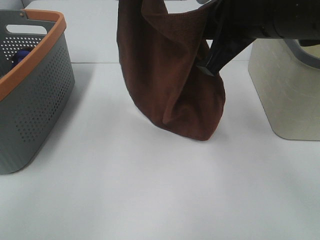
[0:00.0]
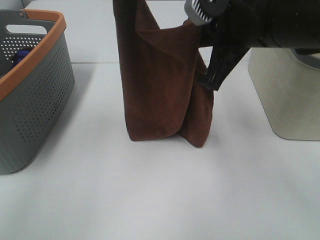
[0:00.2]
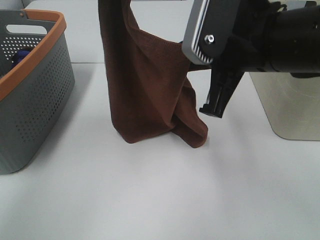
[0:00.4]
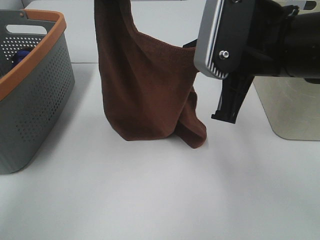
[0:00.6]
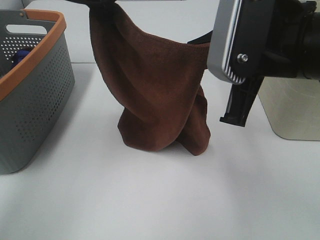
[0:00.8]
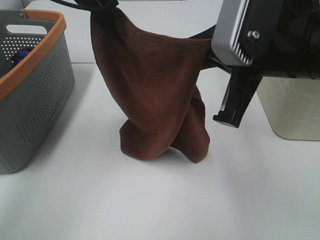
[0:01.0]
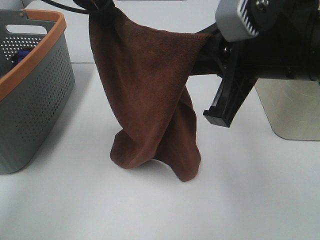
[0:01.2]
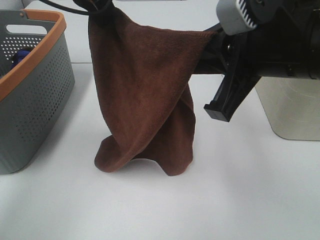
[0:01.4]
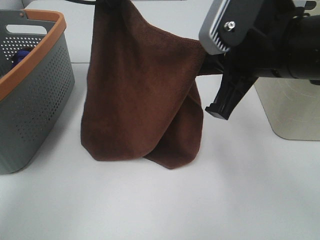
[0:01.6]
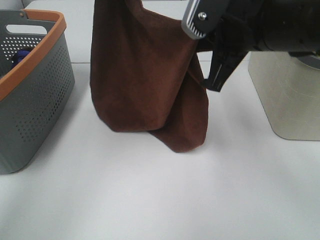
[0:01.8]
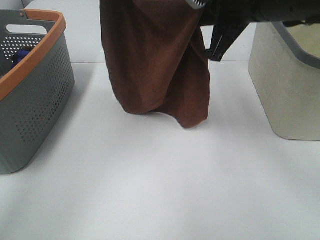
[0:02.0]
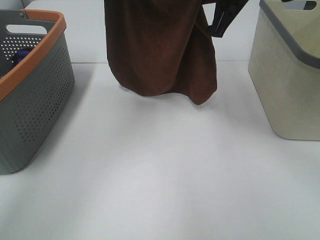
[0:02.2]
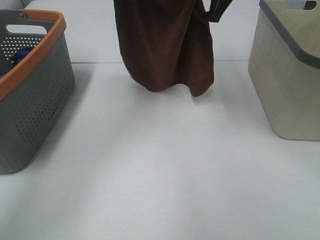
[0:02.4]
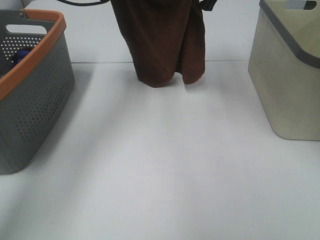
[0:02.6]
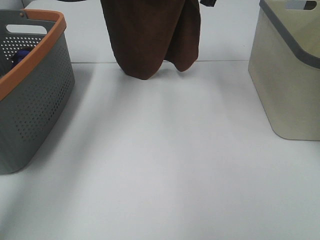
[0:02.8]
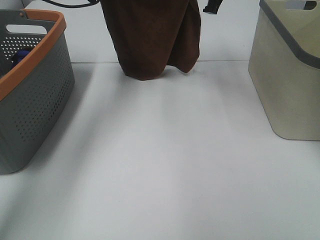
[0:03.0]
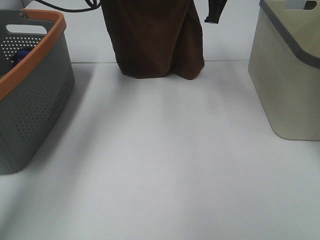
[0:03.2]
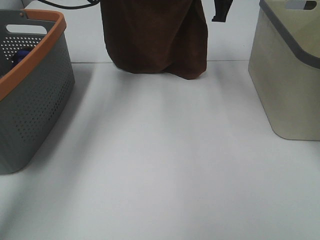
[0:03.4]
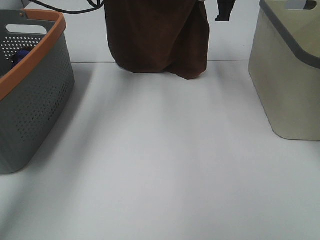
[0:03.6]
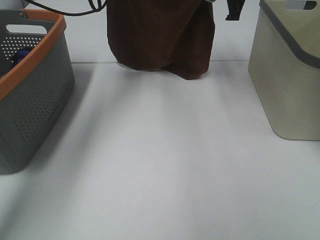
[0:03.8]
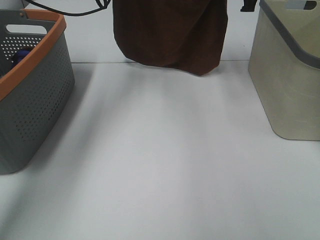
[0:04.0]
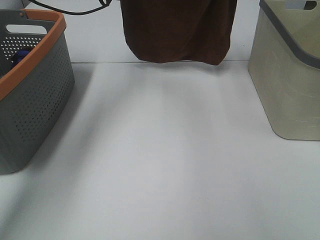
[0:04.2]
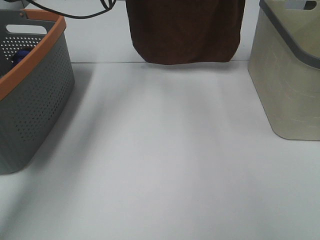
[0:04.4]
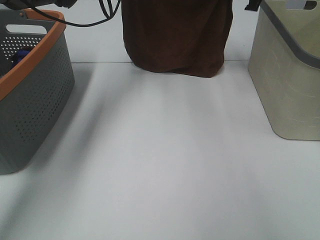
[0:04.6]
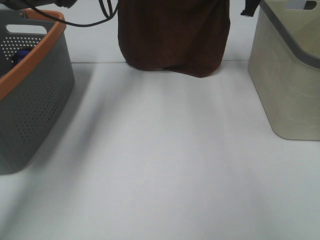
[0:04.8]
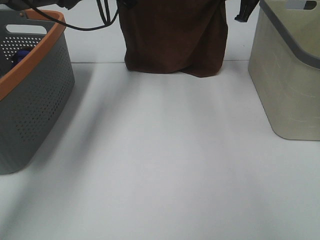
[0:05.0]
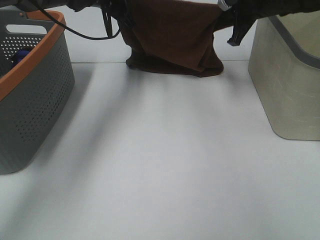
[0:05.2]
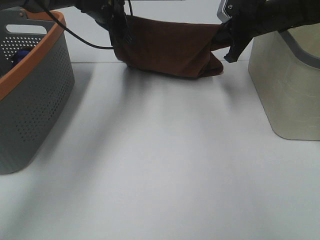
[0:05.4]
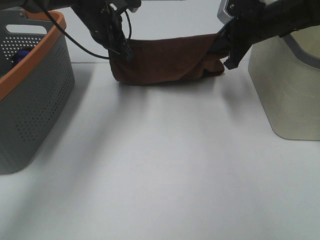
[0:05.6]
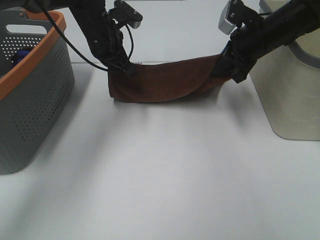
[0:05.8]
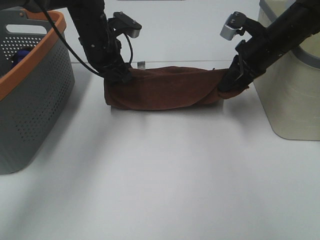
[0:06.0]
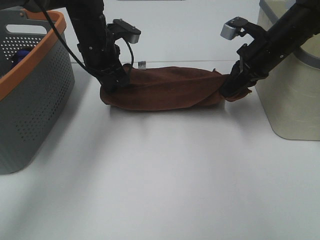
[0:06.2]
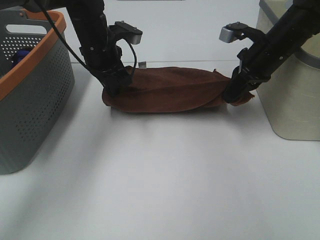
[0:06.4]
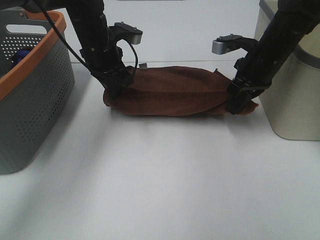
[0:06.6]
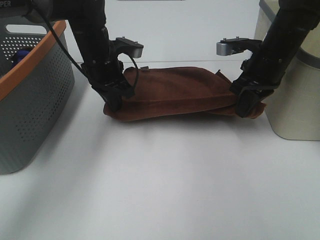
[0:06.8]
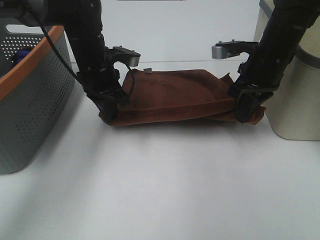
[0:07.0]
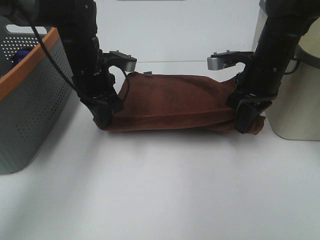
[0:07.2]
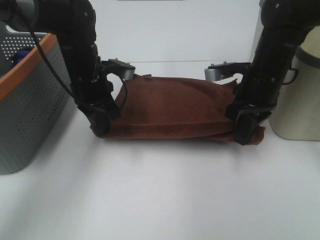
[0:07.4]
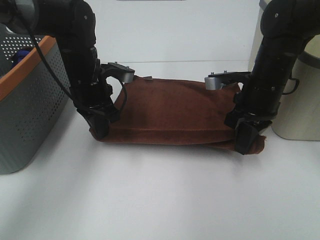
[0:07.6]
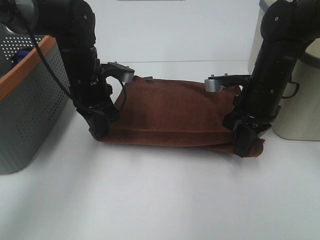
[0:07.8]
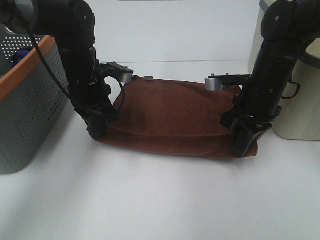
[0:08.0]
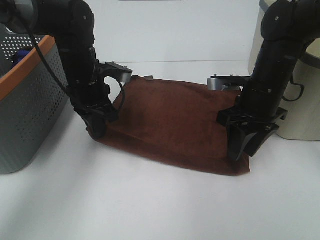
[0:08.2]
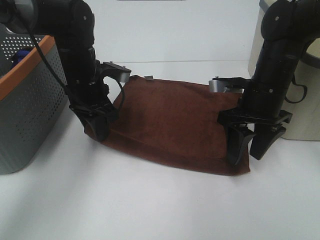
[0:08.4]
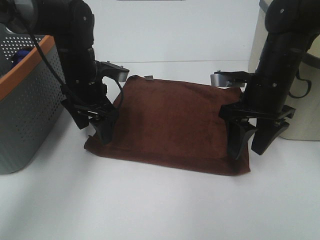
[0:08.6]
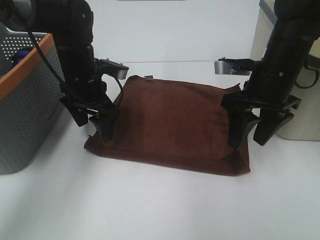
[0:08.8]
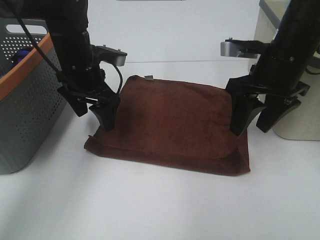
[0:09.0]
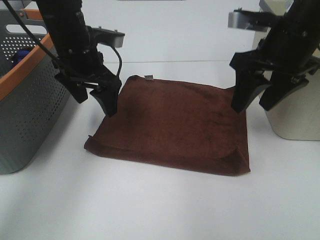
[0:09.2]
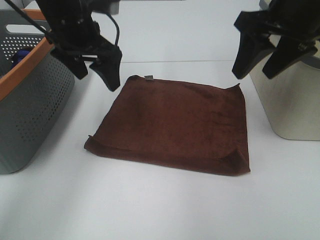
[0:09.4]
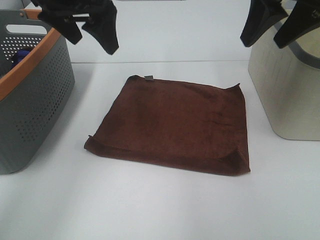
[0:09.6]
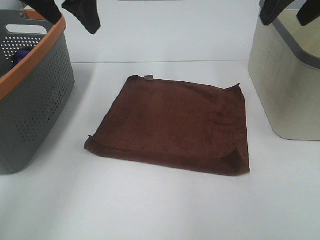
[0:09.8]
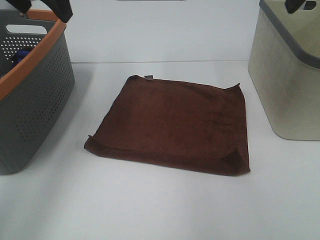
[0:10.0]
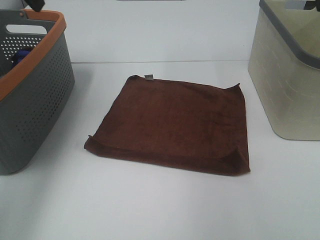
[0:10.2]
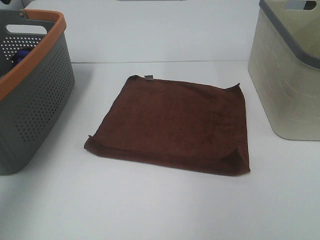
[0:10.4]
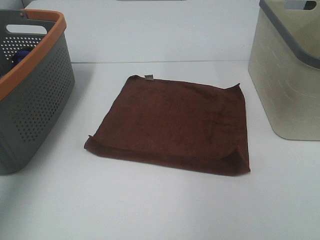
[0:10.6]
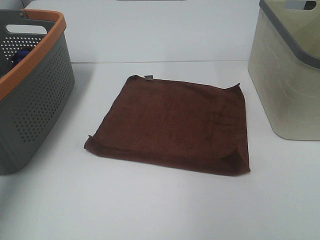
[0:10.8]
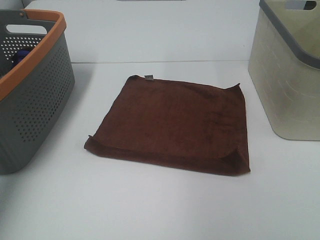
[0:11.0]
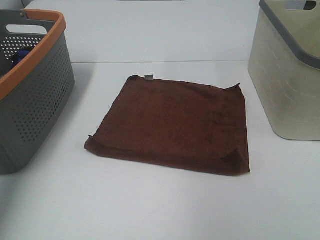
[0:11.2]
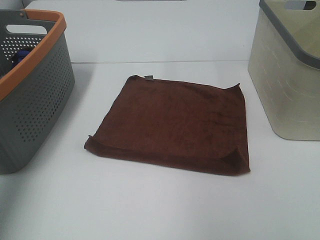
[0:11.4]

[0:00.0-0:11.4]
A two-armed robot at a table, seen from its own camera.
Task of the whole recording: Remove the towel and place it.
Step, 0:00.0 to 0:02.6: Right hand: spread the brown towel flat on the table.
Step, 0:00.0 to 0:02.8: Left hand: spread the brown towel flat on the table.
0:00.0 to 0:01.4: The left gripper is displaced to the left by some 5 cm.
0:01.4 to 0:02.8: The left gripper is displaced forward by approximately 15 cm; the right gripper travels forward by about 25 cm.
0:02.8 to 0:04.2: The right gripper shifts approximately 10 cm to the right.
0:04.2 to 0:05.6: Both grippers move downward, roughly 10 cm.
0:05.6 to 0:07.2: The two grippers go some 10 cm backward.
0:07.2 to 0:08.6: The right gripper opens, while the left gripper opens its fingers.
0:08.6 to 0:10.0: Both grippers move upward, roughly 20 cm.
0:10.0 to 0:11.4: The right gripper goes some 15 cm backward; the left gripper moves backward and to the left, roughly 20 cm.

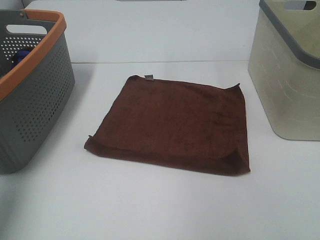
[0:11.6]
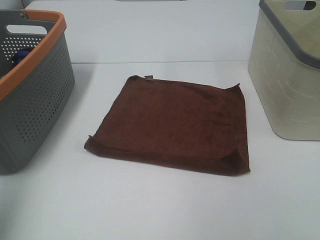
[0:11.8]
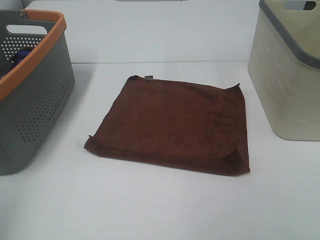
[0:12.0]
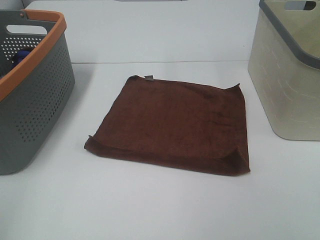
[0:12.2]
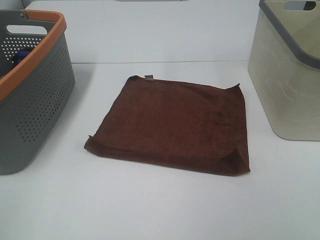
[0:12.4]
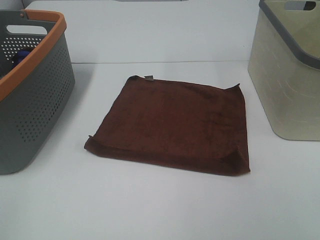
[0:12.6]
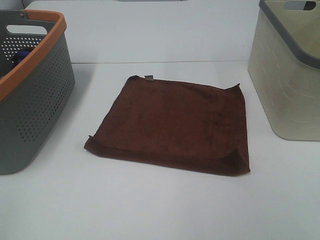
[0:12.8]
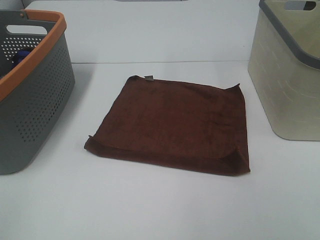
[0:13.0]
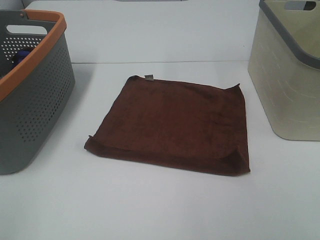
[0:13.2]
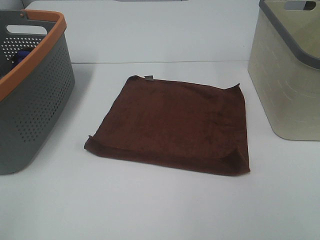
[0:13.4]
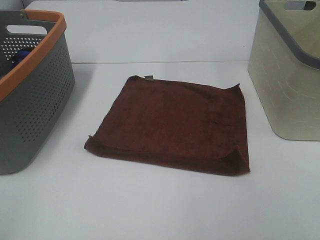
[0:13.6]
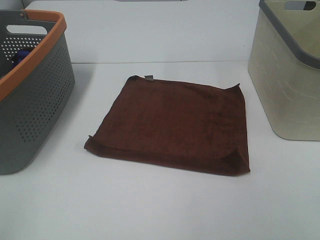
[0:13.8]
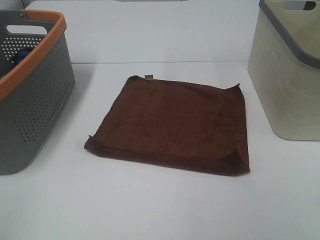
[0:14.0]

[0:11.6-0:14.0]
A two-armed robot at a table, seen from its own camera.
Task of the whole recording: Remove the towel and place it.
0:11.6 to 0:12.8: The left gripper shifts about 20 cm backward and downward.

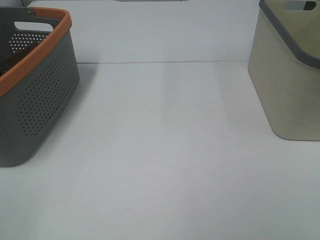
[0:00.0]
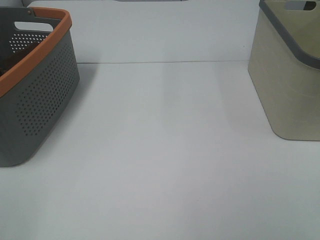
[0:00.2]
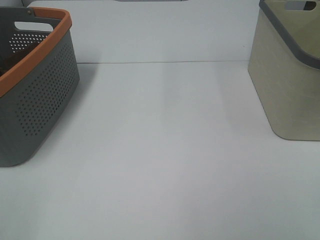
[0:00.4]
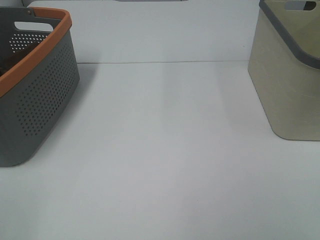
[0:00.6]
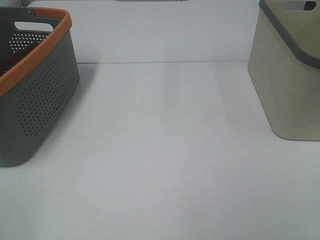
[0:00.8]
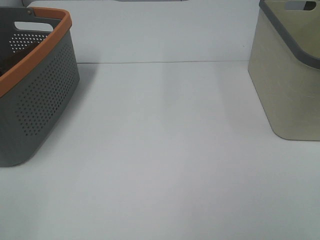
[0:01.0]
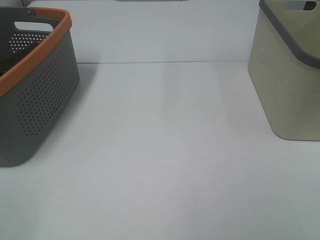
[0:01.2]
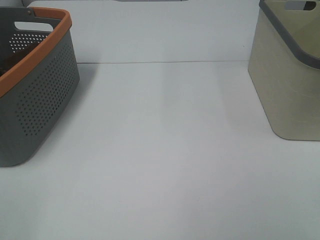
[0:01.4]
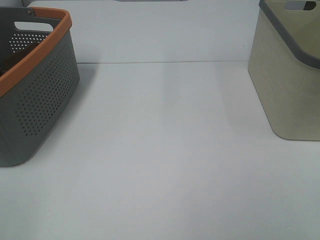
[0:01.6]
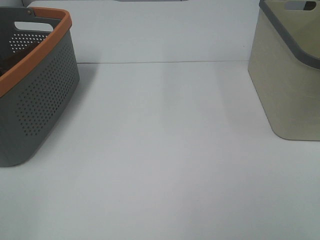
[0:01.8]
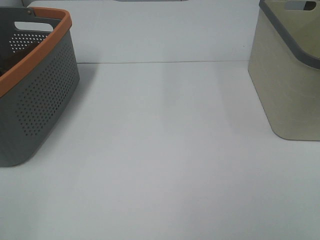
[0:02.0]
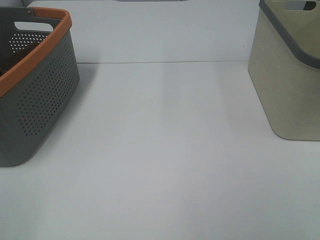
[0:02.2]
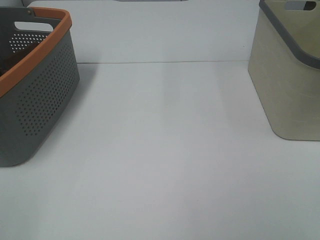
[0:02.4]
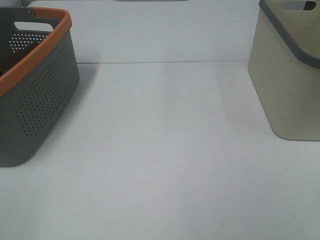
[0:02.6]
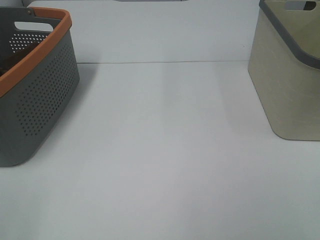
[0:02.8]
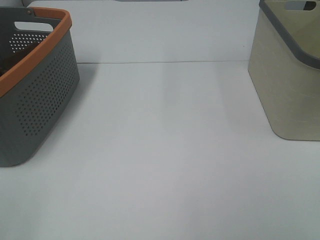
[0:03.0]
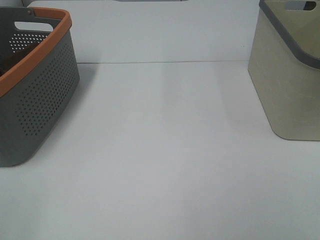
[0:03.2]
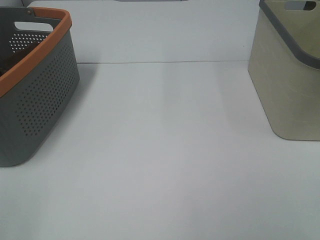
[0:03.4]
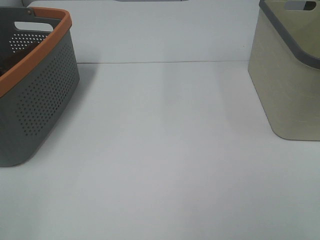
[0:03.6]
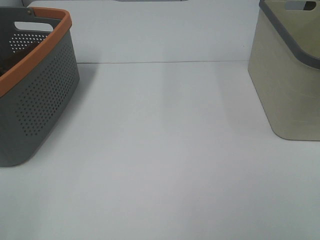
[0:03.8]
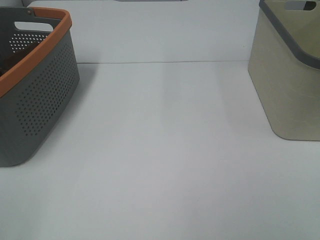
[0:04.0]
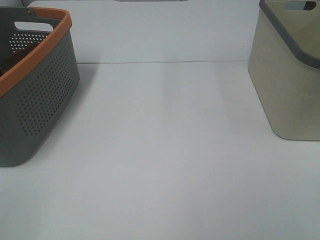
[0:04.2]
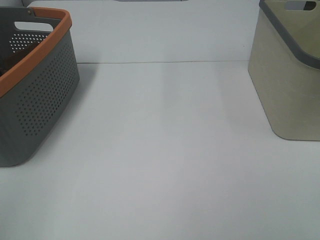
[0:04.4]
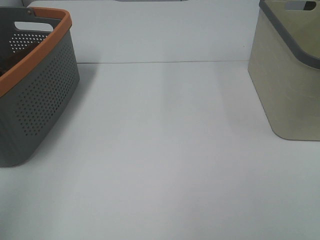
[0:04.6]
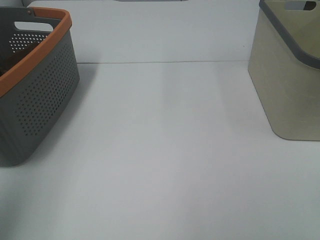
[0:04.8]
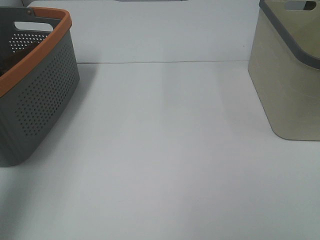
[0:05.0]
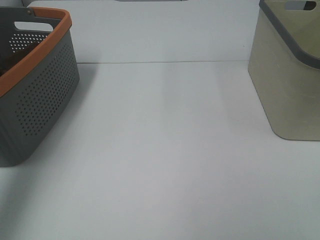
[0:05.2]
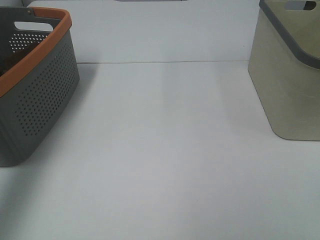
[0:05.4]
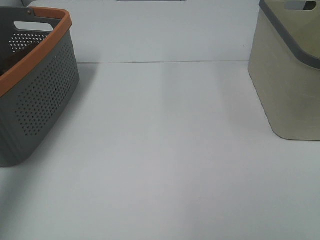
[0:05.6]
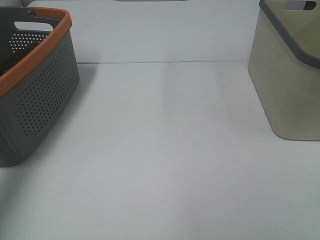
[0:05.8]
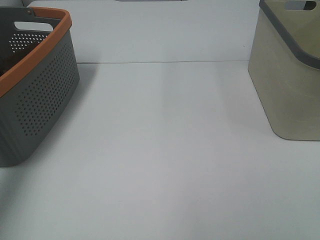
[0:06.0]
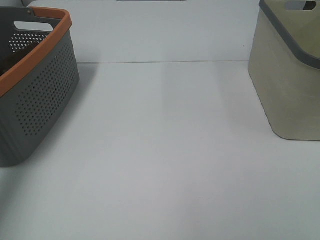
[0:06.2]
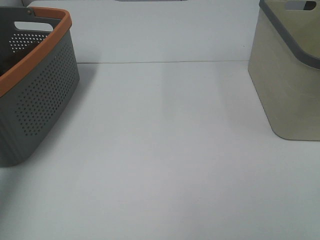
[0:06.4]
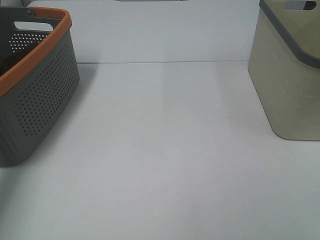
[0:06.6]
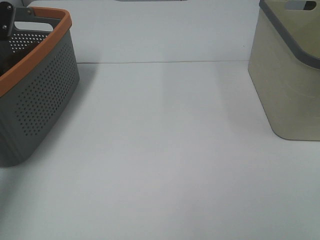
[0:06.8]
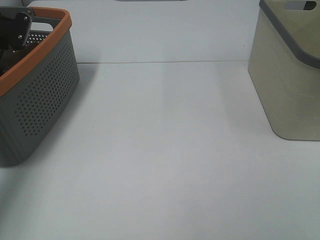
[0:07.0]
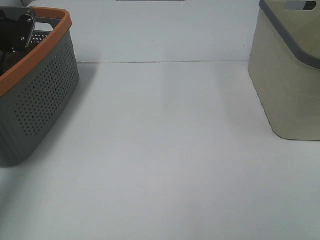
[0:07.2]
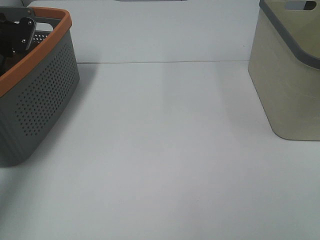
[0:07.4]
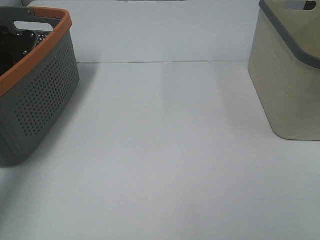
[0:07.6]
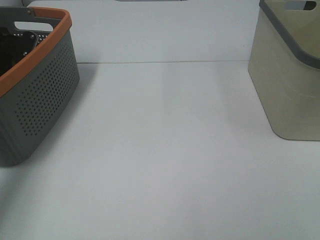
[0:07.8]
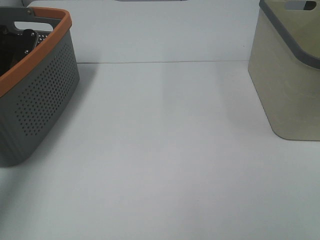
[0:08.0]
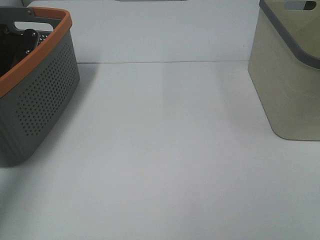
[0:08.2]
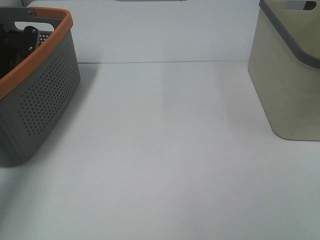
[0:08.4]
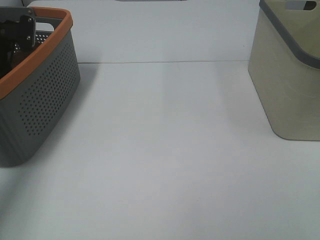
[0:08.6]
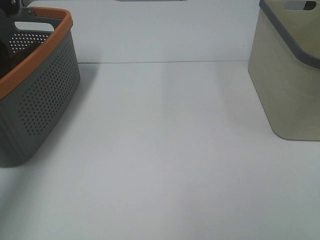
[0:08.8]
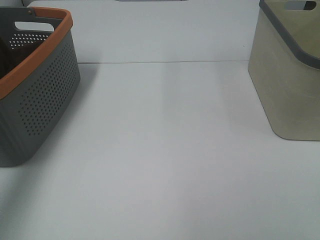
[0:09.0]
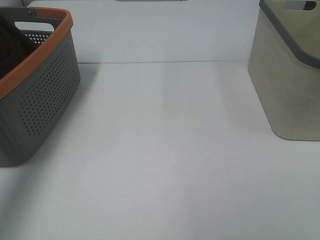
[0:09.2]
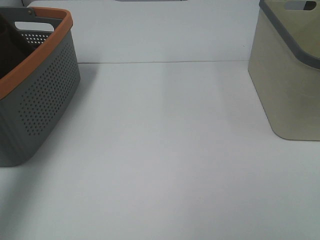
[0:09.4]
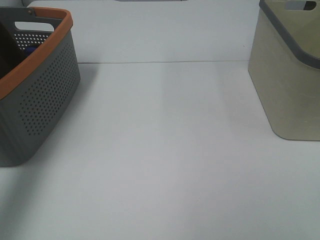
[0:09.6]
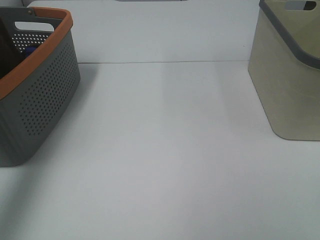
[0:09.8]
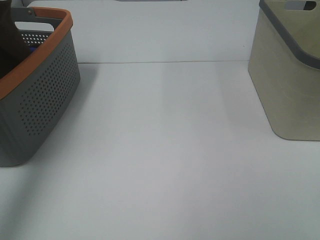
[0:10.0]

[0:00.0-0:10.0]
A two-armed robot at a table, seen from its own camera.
Task of the whole recording: Remove the towel and place it.
0:00.0 to 0:02.8: The two grippers keep their place.
0:04.2 to 0:05.8: The left gripper goes approximately 35 cm forward.
0:05.8 to 0:07.2: The left gripper heads downward and forward, covering roughly 15 cm.
0:08.6 to 0:10.0: The left gripper travels upward and backward by approximately 30 cm.
